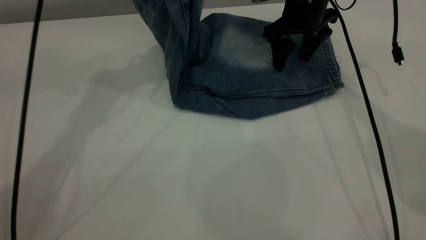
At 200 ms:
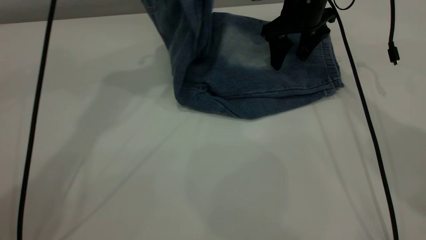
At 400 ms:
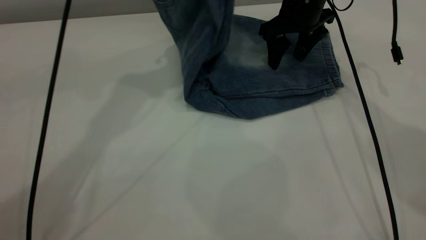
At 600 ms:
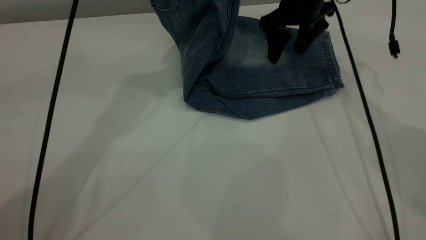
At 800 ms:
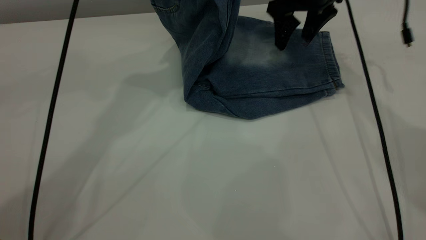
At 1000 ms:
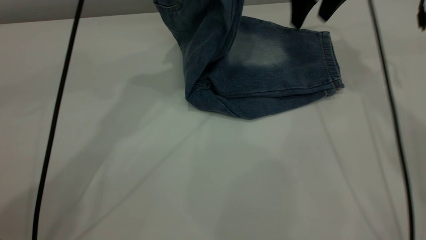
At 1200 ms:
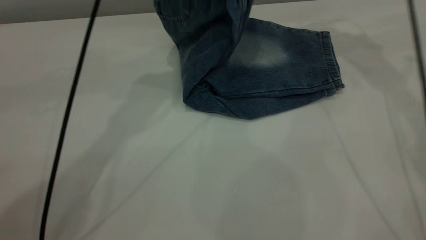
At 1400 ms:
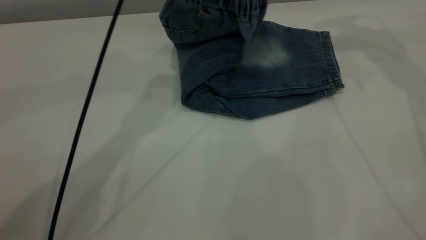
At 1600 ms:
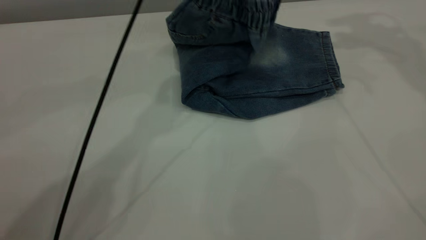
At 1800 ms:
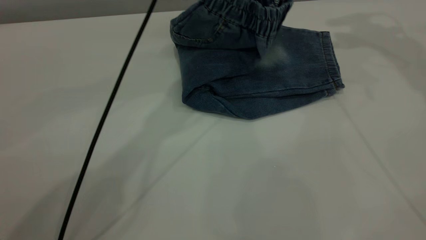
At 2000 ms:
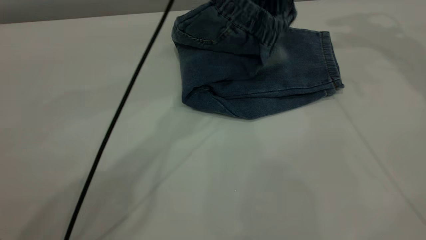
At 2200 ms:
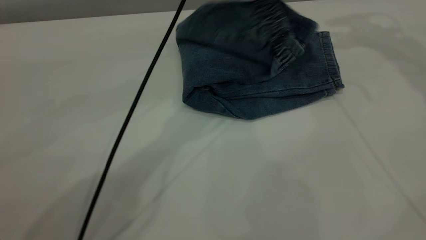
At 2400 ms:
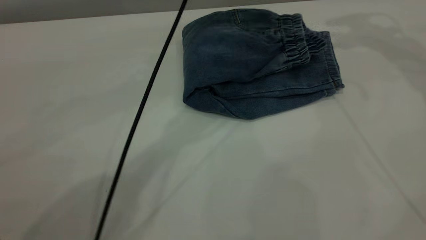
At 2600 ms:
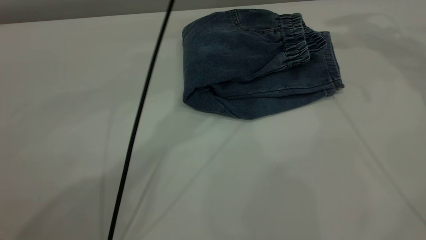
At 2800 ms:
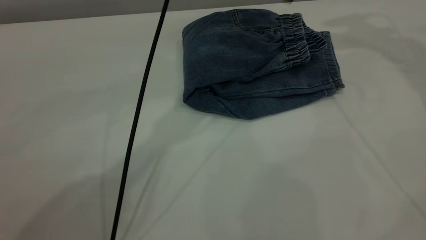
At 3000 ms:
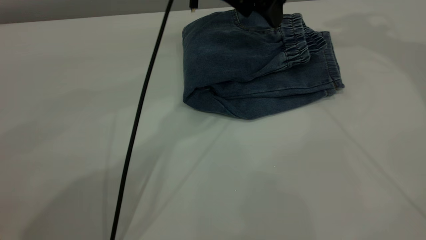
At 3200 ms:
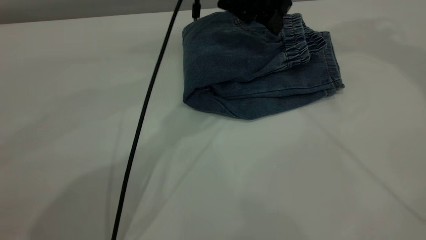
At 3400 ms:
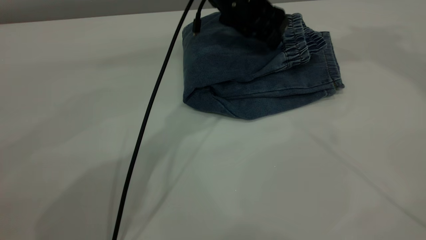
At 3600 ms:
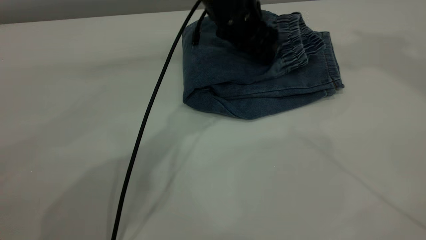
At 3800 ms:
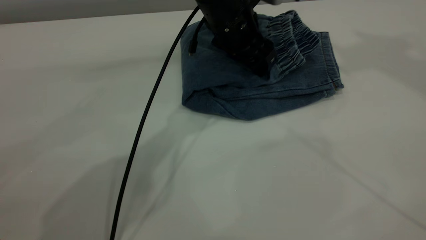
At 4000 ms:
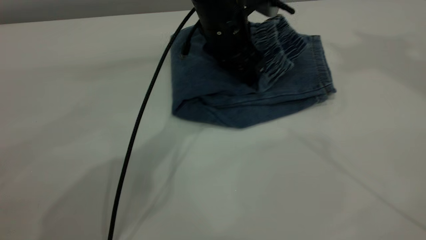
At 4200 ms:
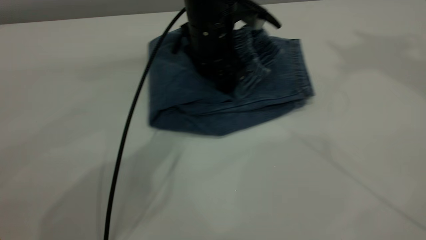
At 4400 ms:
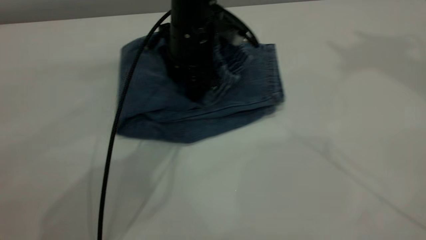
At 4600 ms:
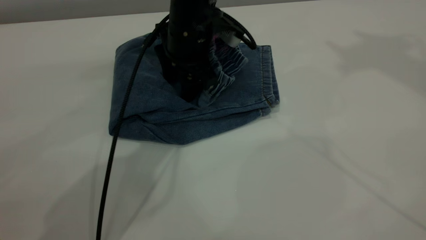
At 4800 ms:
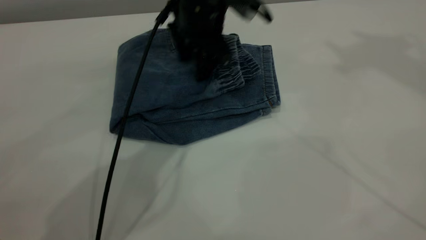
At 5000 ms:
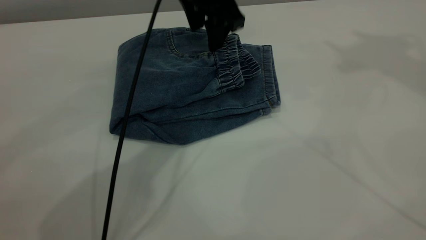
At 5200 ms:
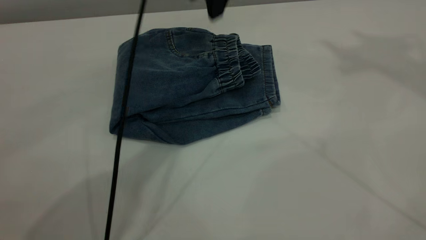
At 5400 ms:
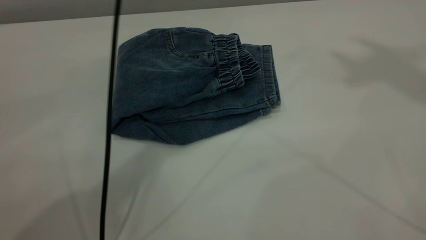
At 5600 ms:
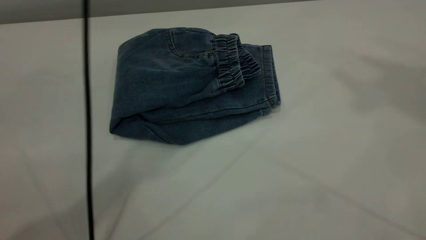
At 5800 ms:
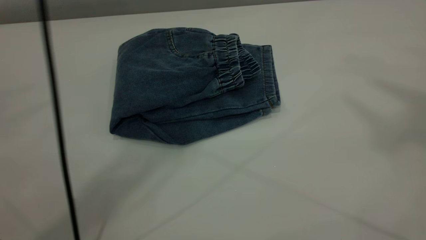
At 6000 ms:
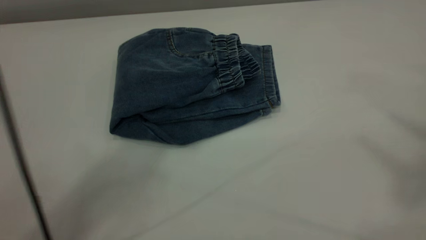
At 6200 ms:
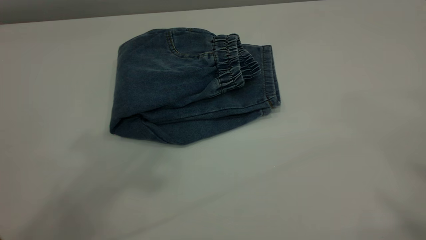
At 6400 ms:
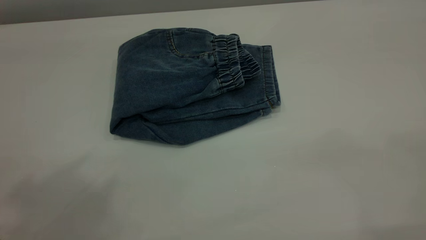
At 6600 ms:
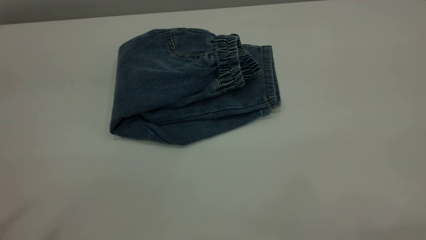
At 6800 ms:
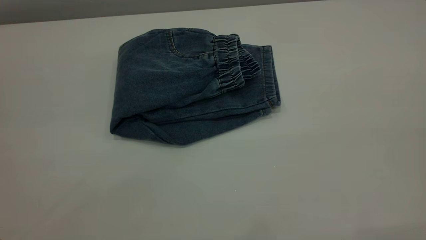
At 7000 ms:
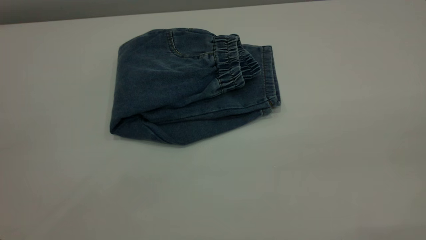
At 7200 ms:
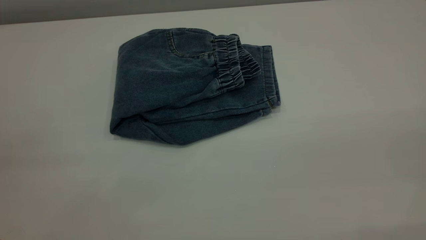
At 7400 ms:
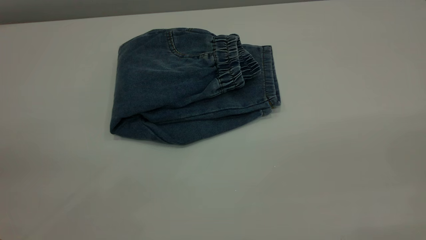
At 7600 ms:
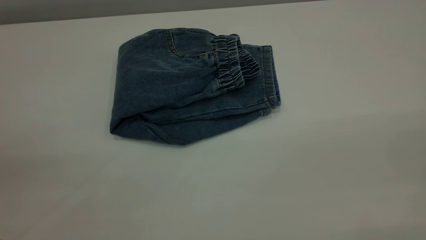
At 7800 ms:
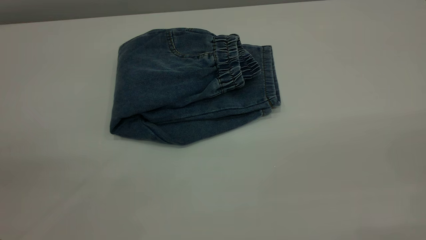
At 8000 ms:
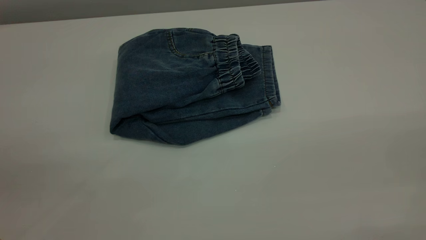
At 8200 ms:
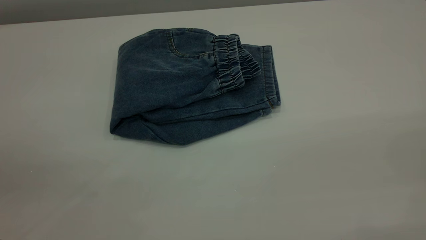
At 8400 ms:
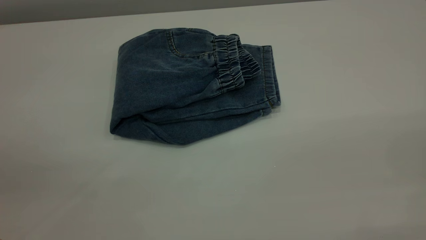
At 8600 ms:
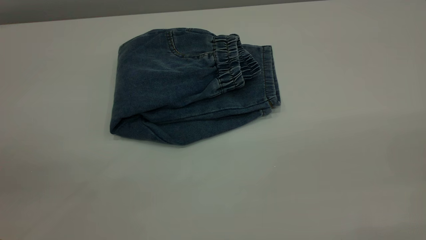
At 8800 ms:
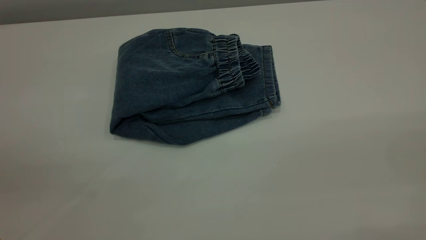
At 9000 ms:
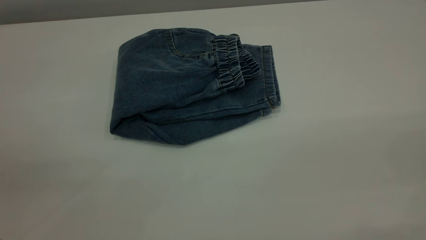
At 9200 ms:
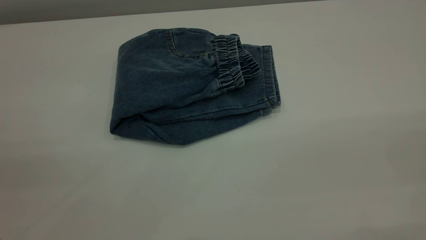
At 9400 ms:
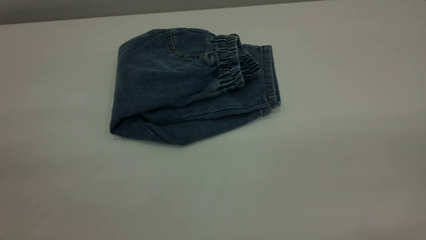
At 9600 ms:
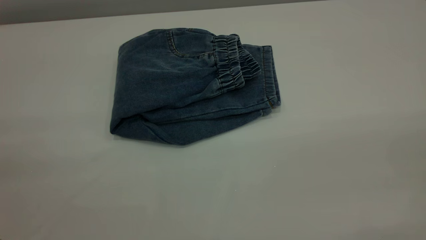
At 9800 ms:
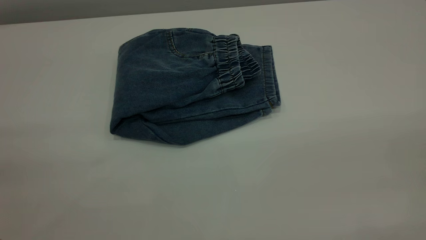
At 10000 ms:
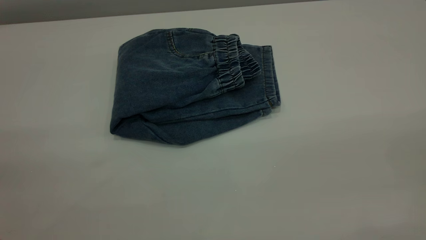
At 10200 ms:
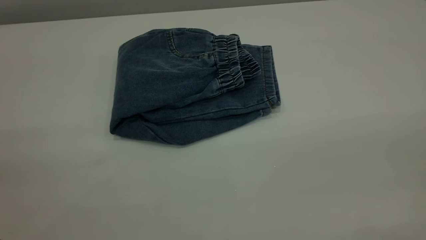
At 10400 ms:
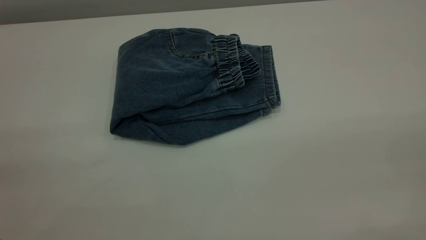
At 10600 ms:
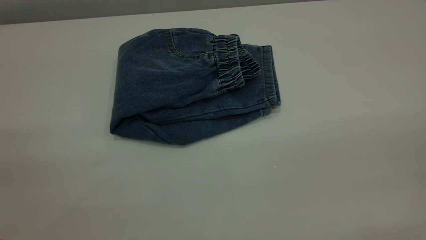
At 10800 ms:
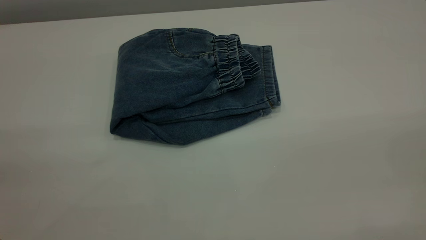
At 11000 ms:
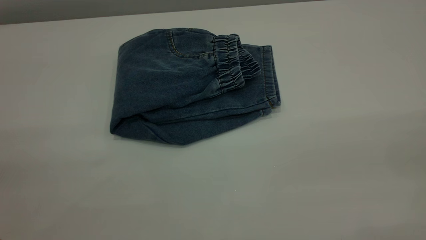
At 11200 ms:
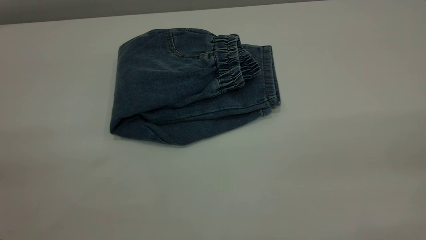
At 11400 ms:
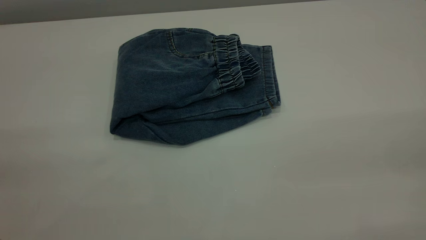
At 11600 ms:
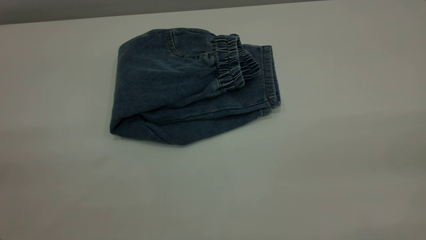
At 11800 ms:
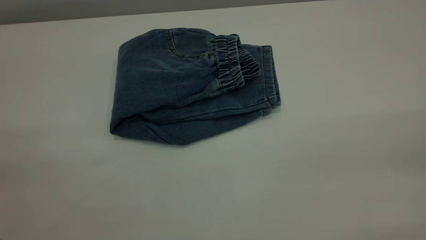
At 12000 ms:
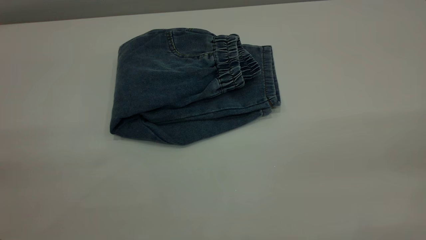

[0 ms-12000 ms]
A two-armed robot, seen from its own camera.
Step, 0 ms to 2600 ms: Fold the pants from left to right.
0 ms to 1600 ms: The left gripper heads to the right and downward, covering some 15 cm. The right gripper shifts roughly 25 cm upward and to the right.
1600 ms to 3000 ms: The left gripper is displaced downward by about 5 cm, and opens; the right gripper shifts approximately 10 cm upward.
3000 ms to 4400 ms: The left gripper is displaced downward and to the left by some 10 cm. The right gripper heads upward and backward, covering some 15 cm.
4400 ms to 6000 ms: The right gripper is displaced backward by roughly 20 cm. The left gripper is displaced upward by approximately 40 cm.
6000 ms to 7600 ms: The left gripper travels backward, to the left and downward by approximately 35 cm.
